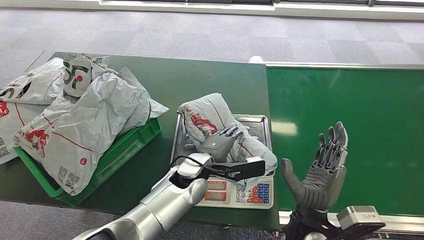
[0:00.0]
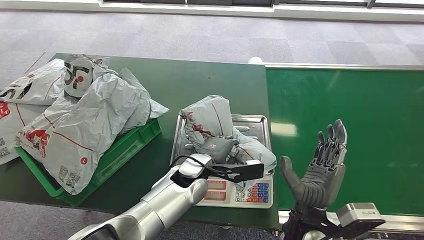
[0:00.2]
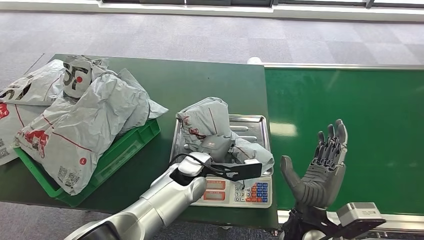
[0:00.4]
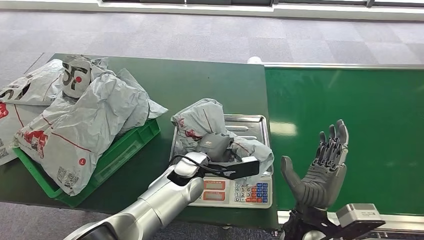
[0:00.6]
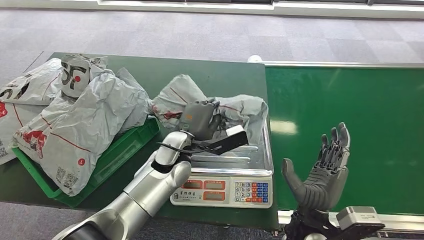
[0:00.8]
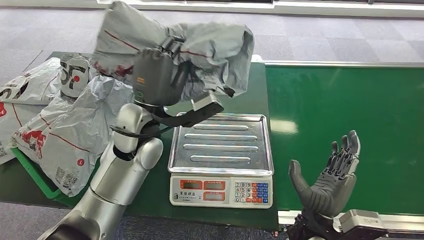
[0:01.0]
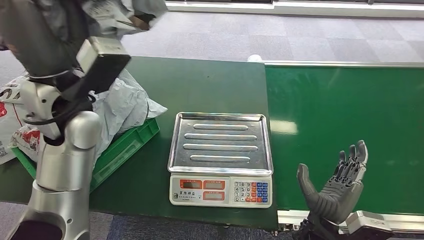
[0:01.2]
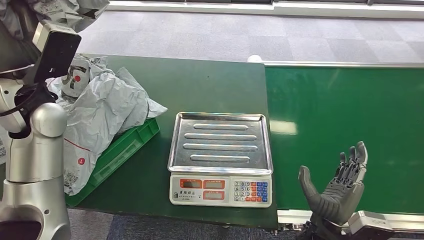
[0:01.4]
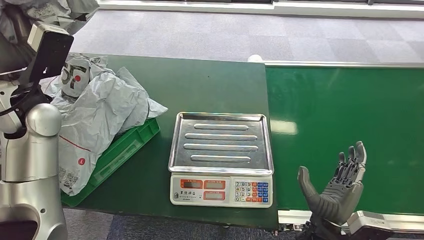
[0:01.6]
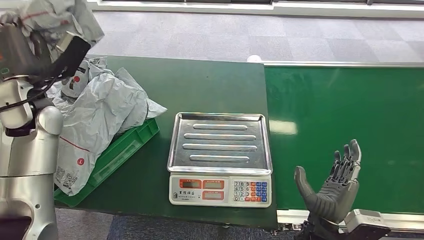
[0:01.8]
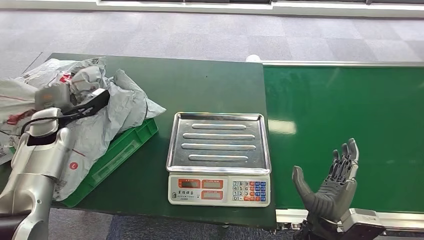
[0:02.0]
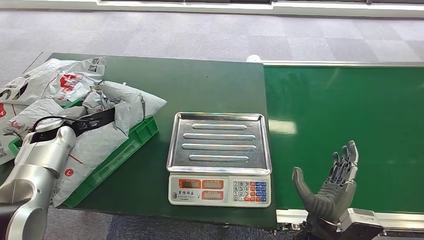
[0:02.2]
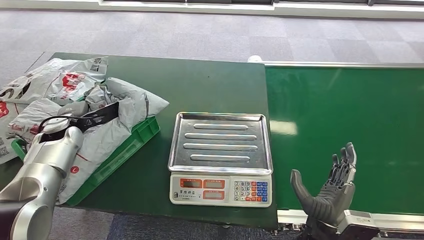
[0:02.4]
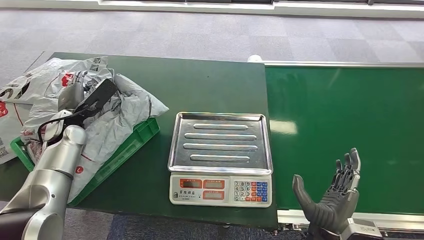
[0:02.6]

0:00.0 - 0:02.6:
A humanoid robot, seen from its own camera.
Step, 0:01.4 - 0:02.6: Place the package into the parcel locker.
